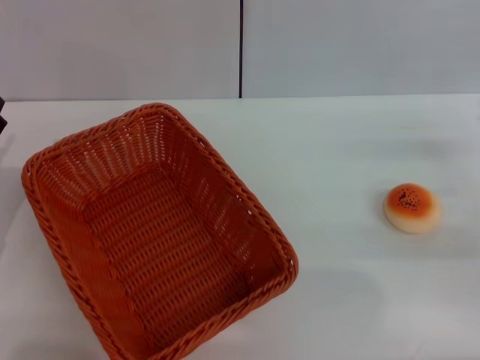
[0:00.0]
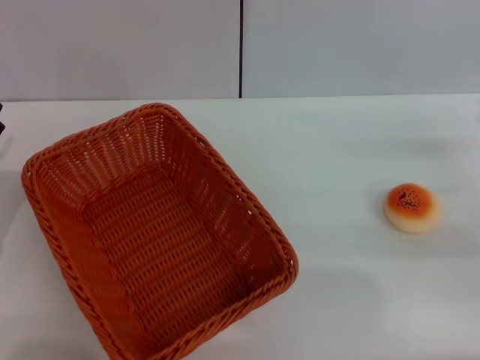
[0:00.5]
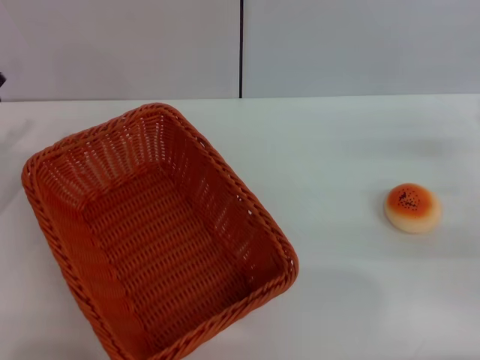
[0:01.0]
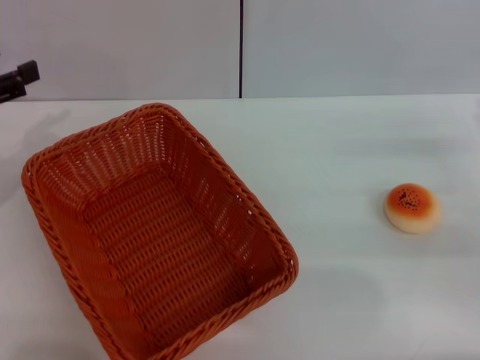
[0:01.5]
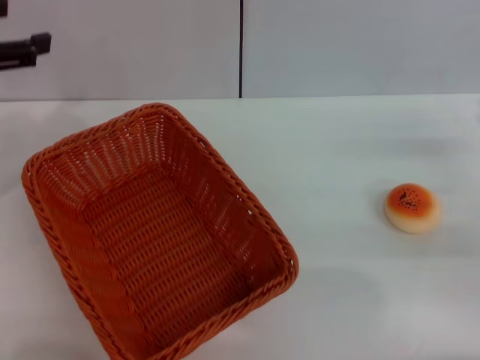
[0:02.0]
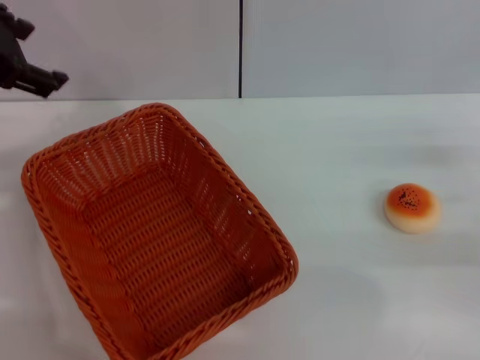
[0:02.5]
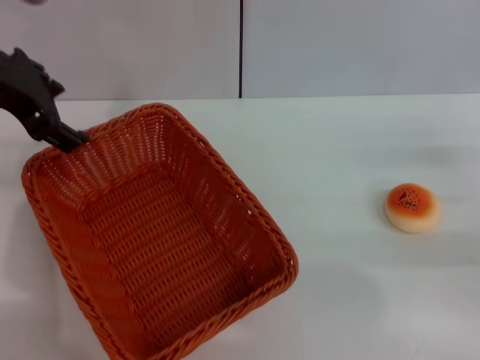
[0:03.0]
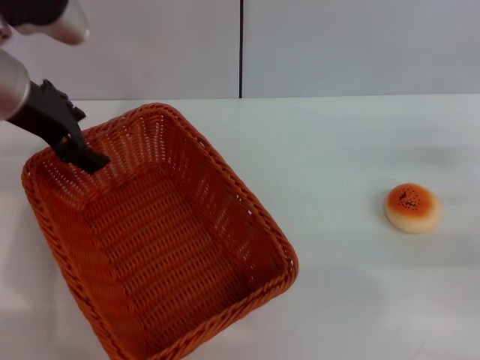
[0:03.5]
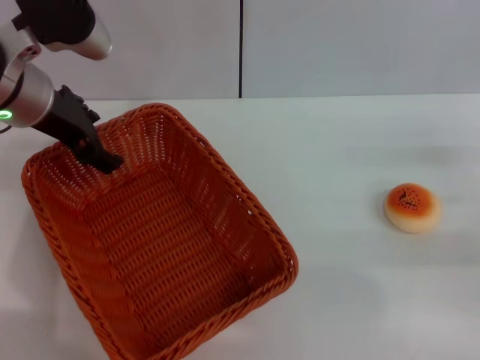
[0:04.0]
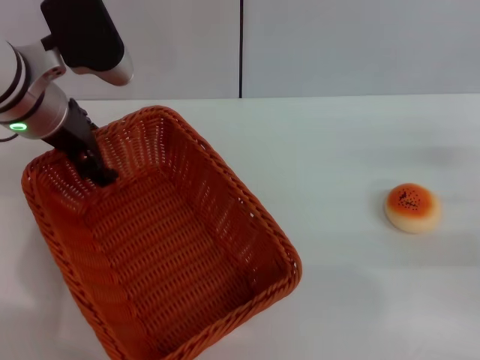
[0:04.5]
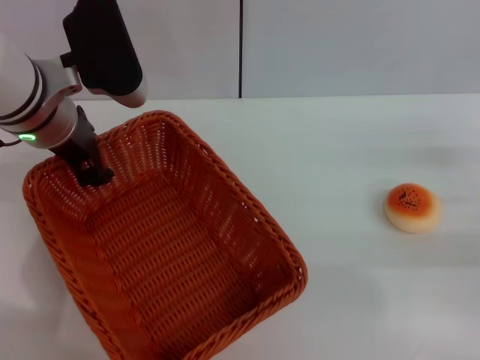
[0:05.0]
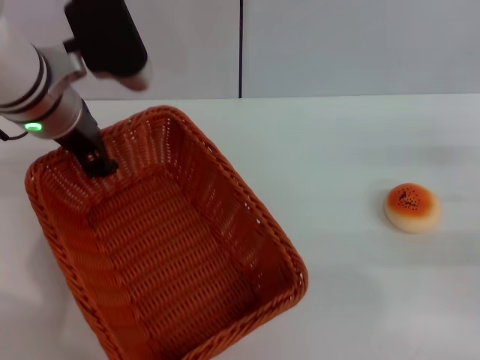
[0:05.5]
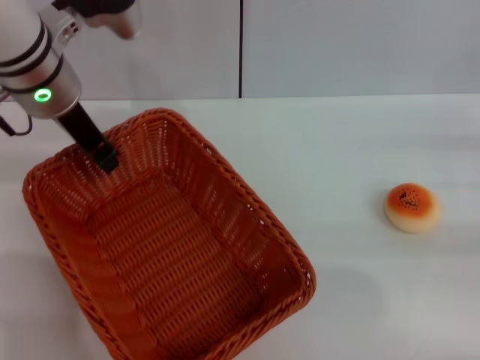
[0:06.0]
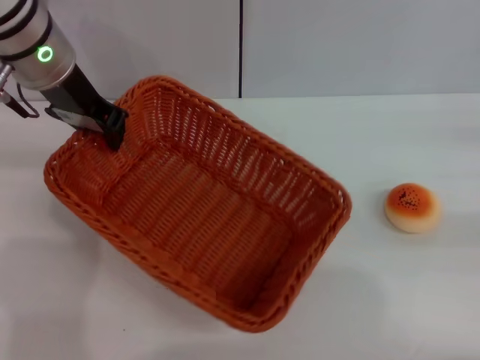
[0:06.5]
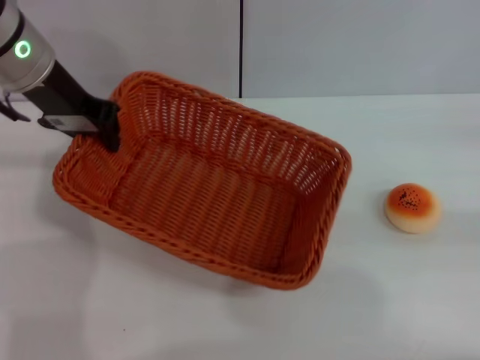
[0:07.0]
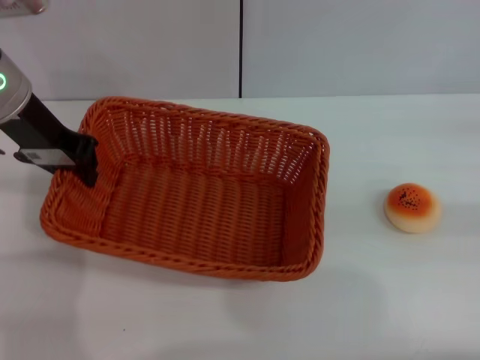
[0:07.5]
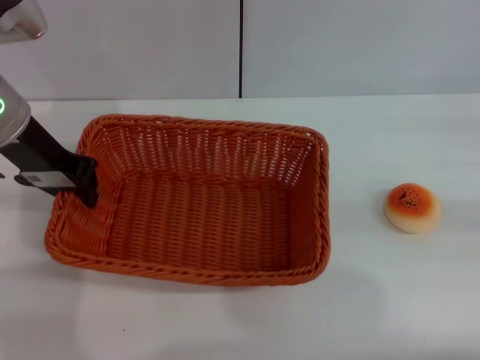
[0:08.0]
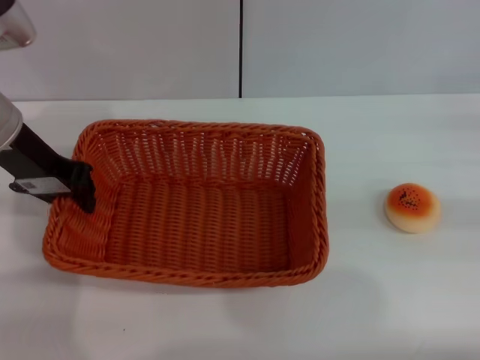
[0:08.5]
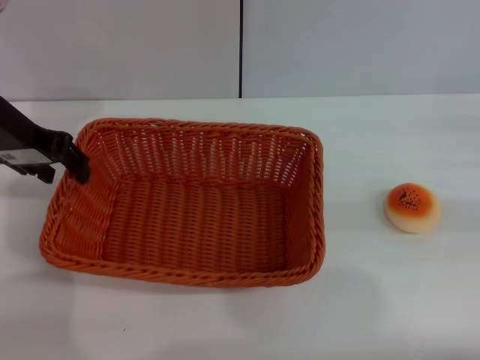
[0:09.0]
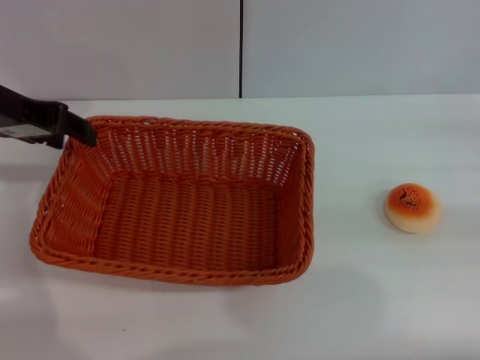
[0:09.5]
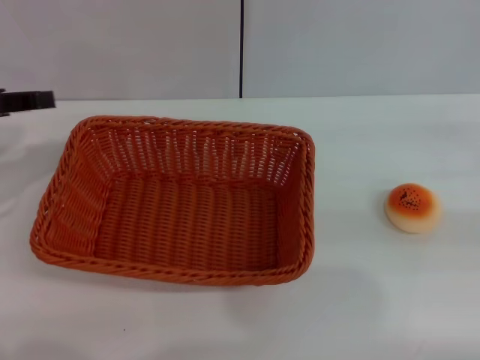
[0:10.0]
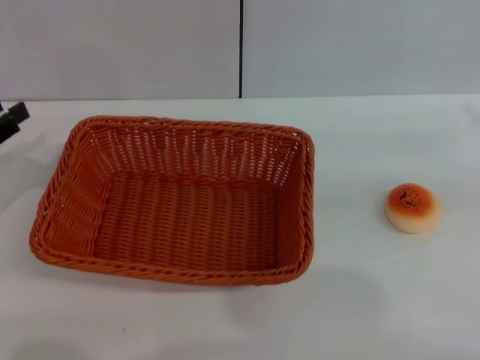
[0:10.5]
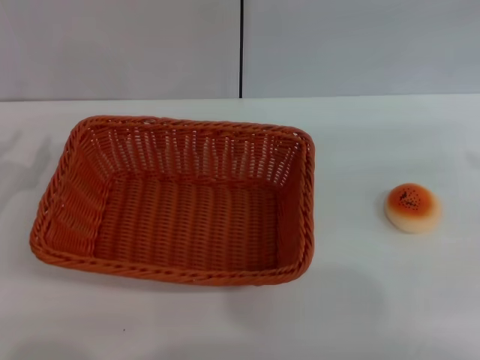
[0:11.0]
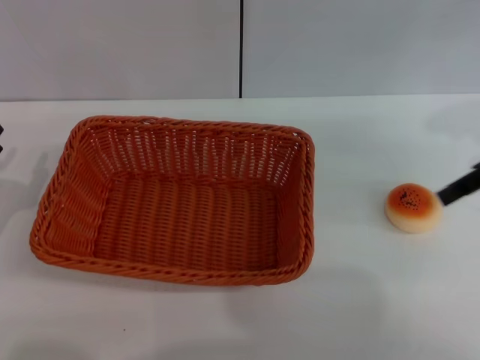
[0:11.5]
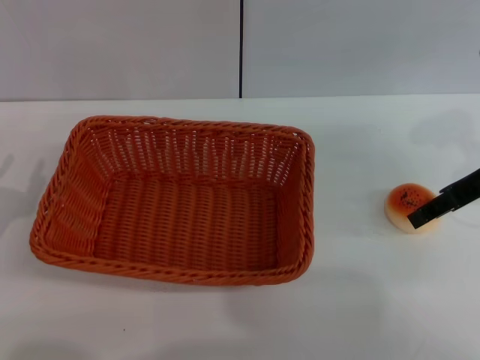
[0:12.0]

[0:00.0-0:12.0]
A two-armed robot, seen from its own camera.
Step, 0:00.0 to 0:10.0: Move the basket to the center of view with the left gripper.
0:00.0 to 0:02.0: The left gripper goes some 20 cm upward.
0:02.0 to 0:04.0: The left gripper goes some 15 cm to the right and forward.
0:04.0 to 0:06.0: The right gripper is displaced to the right by some 5 cm, while the left gripper closes up.
0:06.0 to 0:08.0: The left gripper goes approximately 5 cm to the left.
0:08.0 to 0:10.0: The left gripper shifts roughly 15 cm to the left and backward, and opens its fingers.
0:10.0 to 0:12.0: The left gripper travels downward and backward by approximately 20 cm. The right gripper heads to the left and forward, covering roughly 15 cm.

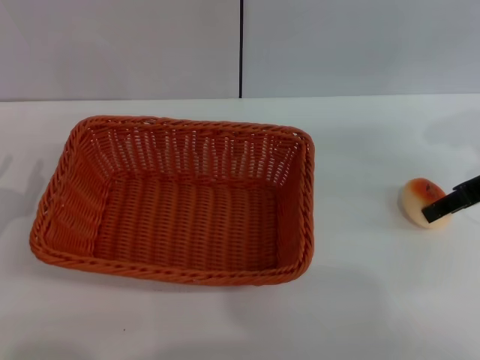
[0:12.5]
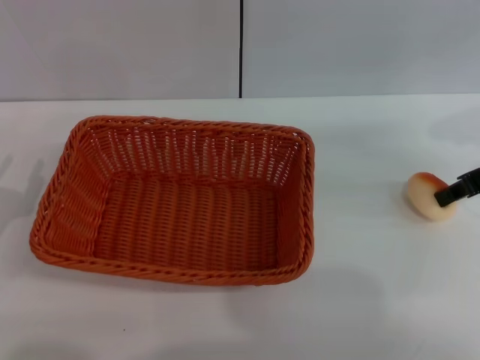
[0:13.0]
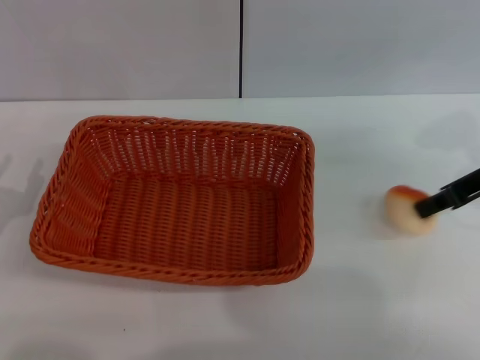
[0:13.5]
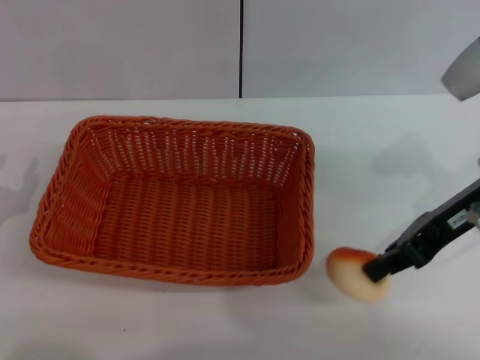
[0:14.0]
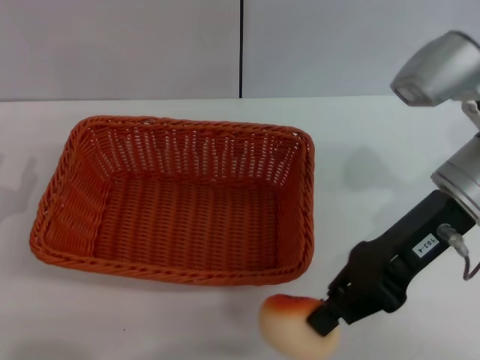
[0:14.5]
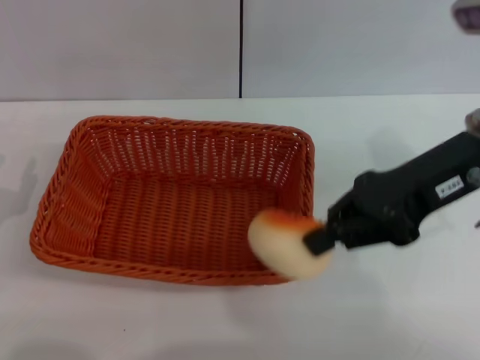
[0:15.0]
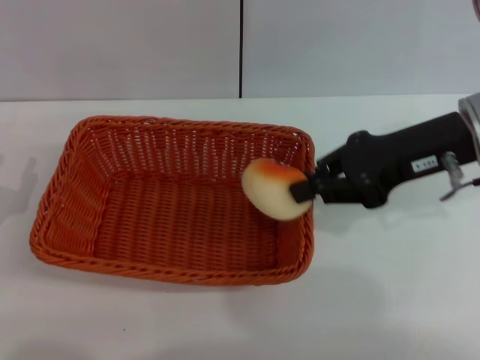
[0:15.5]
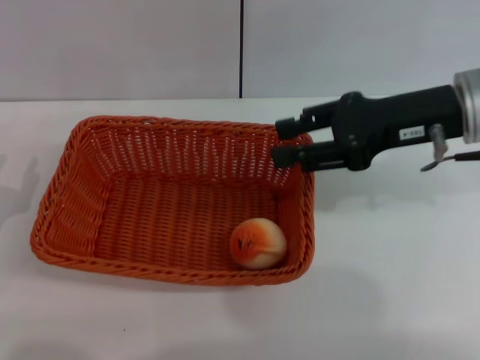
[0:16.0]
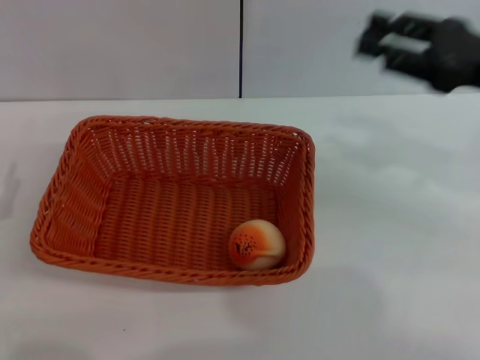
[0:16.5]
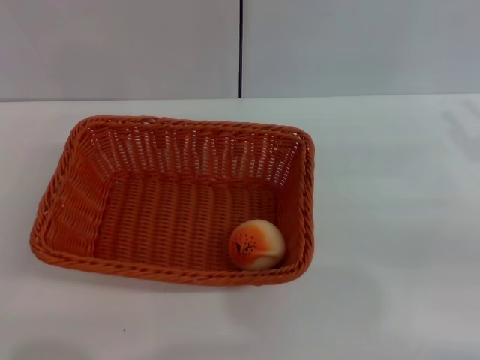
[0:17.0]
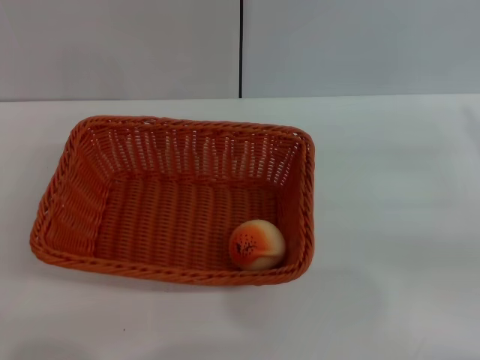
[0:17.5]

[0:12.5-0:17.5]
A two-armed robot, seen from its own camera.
Step, 0:13.5 to 0:16.0: Place the egg yolk pastry into the basket with the right gripper.
0:12.5 to 0:15.0: The right gripper goes some 10 cm to the left and upward, and closes.
0:15.0 to 0:17.5: The right gripper is displaced to the right and downward by about 20 cm, and opens up.

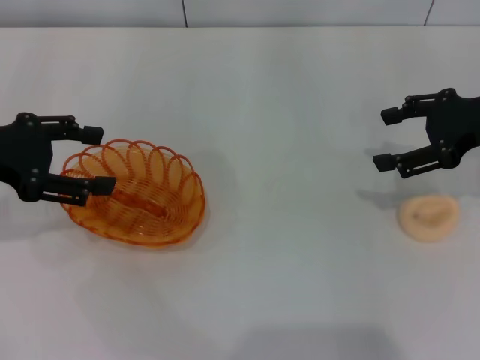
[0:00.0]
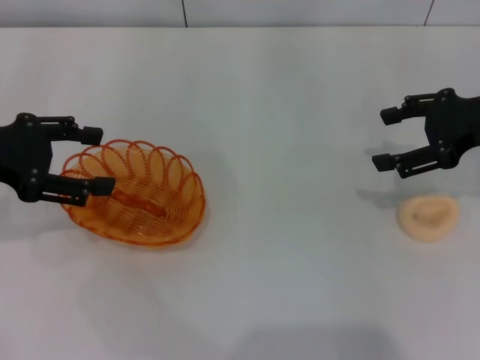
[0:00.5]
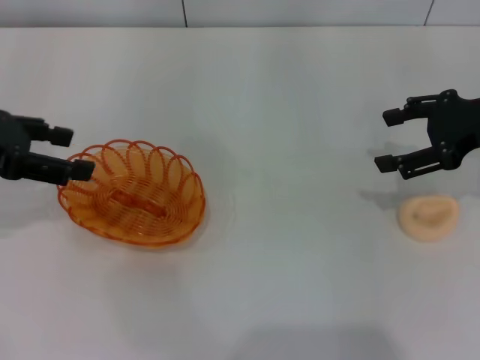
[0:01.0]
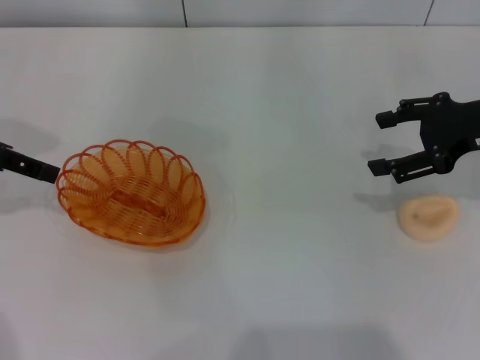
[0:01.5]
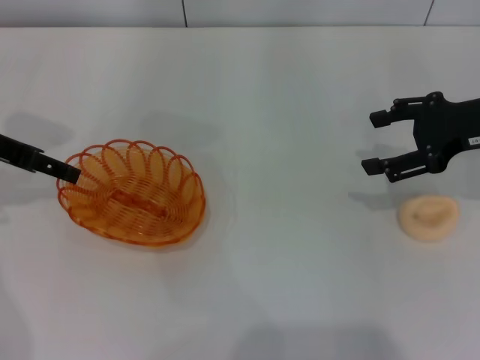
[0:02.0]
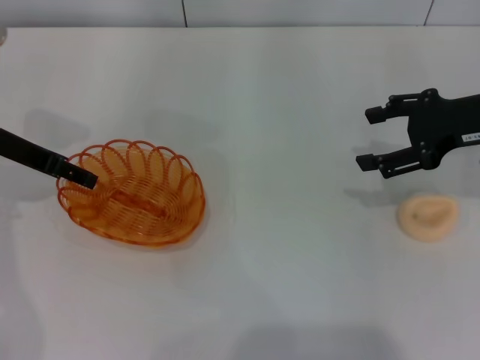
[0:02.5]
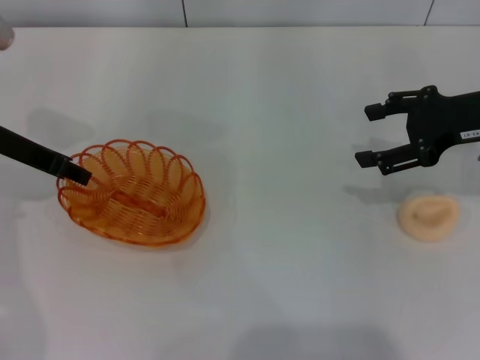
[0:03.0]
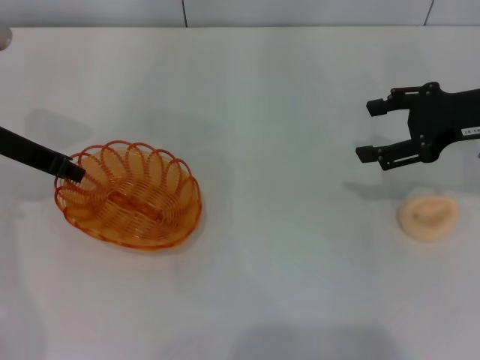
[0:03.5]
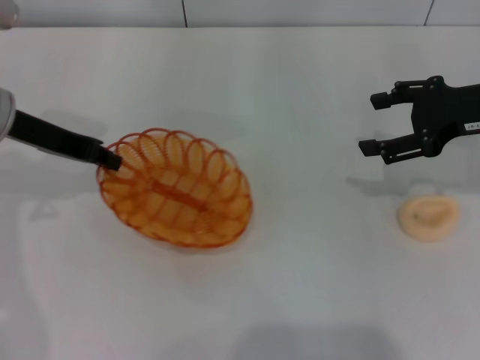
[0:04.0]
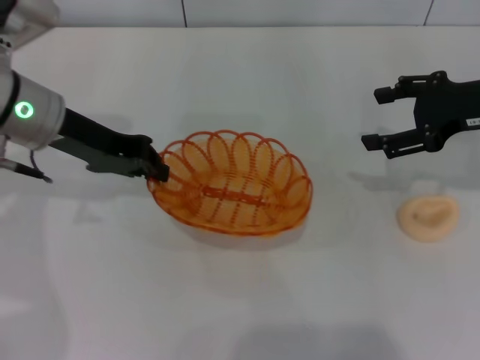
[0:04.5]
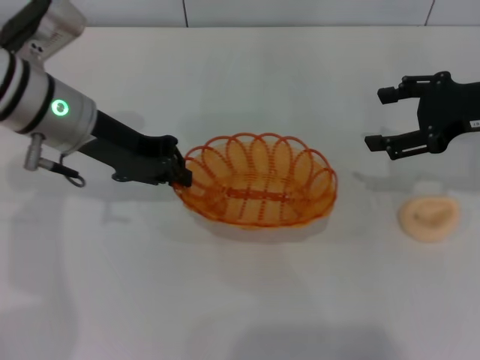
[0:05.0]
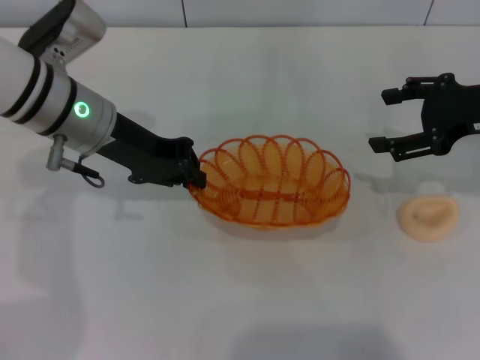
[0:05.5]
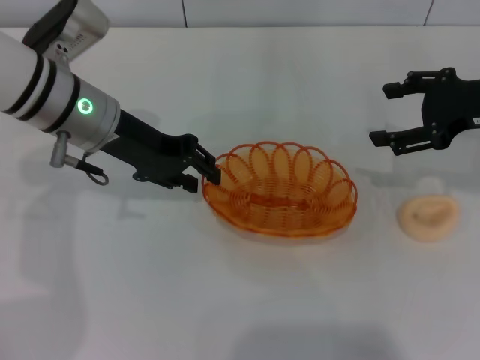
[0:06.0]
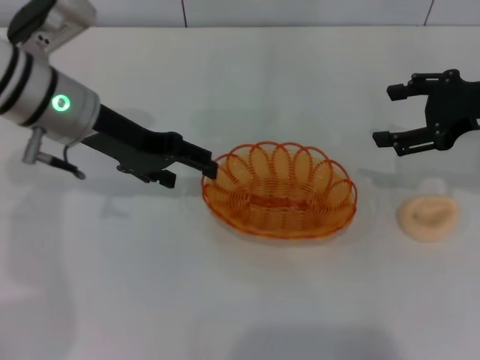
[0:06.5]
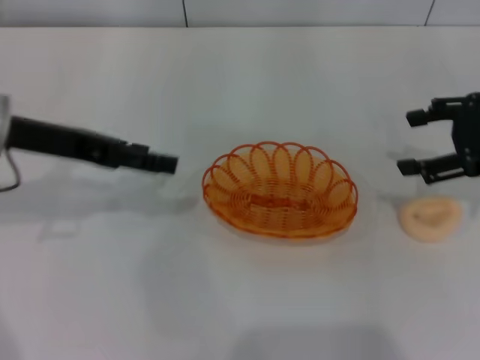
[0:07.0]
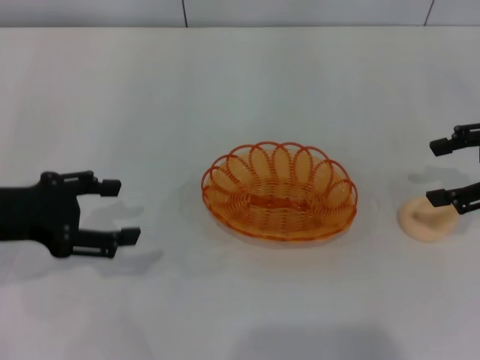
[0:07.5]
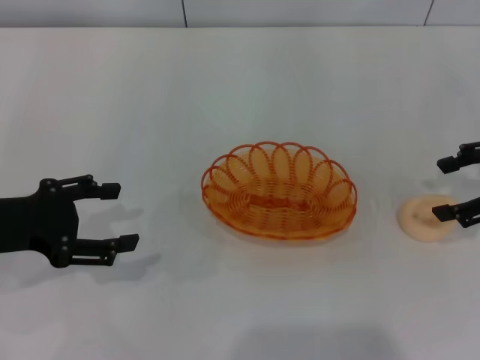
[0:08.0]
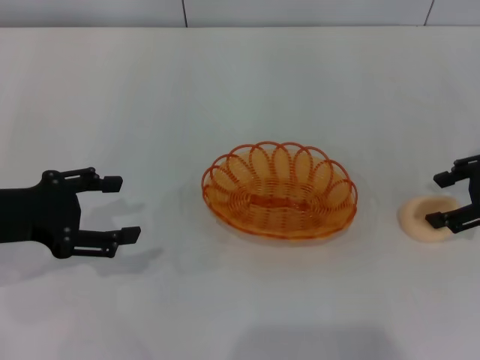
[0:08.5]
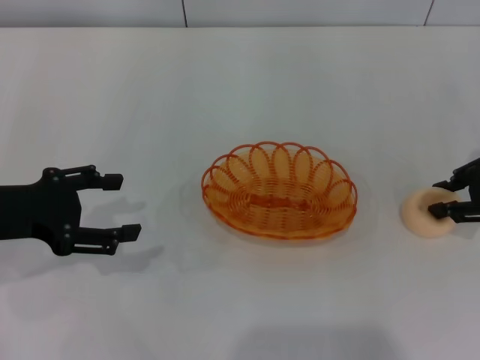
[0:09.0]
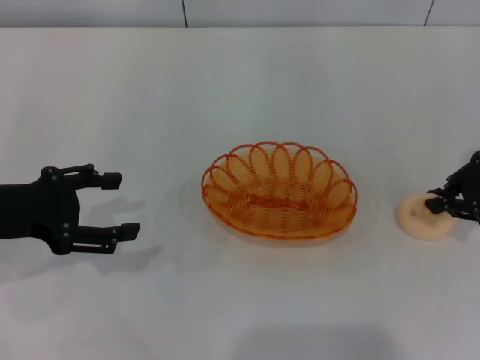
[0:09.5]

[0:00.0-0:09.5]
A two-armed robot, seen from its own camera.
Step, 0:00.0 to 0:04.0: Pick up the basket with the left gripper.
Step, 0:04.5 to 0:06.5: Place the basket in the center of view with the left gripper.
0:02.0 to 0:04.0: The left gripper shifts by approximately 5 cm, and closes its fingers.
0:04.0 to 0:05.5: The left gripper is displaced to the right by roughly 10 cm.
0:05.5 to 0:07.5: The right gripper changes place by approximately 5 cm; the left gripper is displaced to the left and backward by some 15 cm, and opens its fingers.
0:07.5 to 0:09.5: The right gripper closes up.
